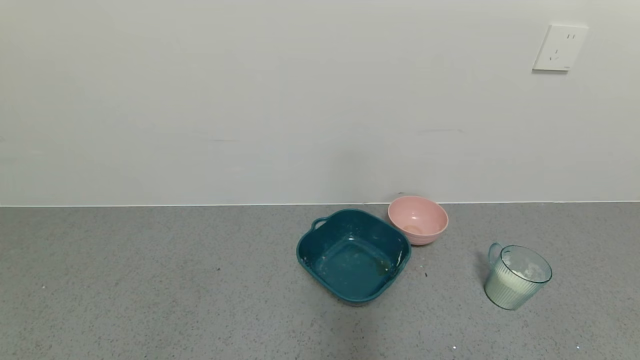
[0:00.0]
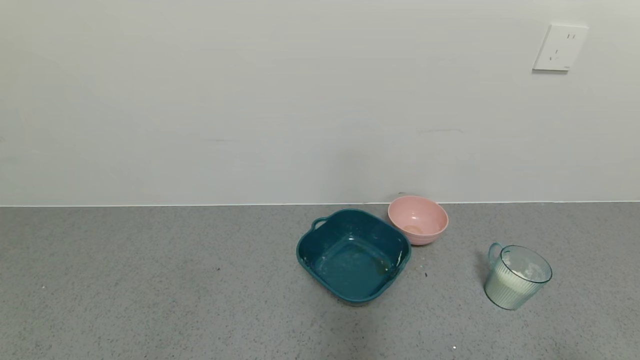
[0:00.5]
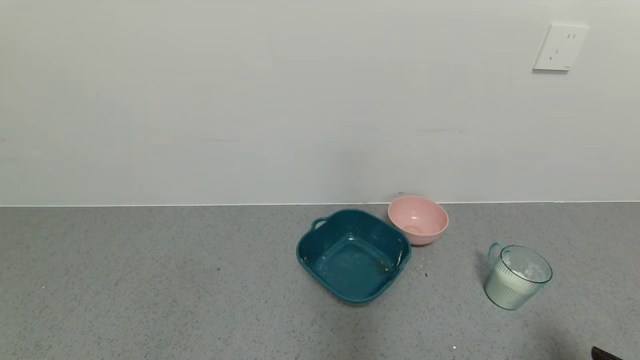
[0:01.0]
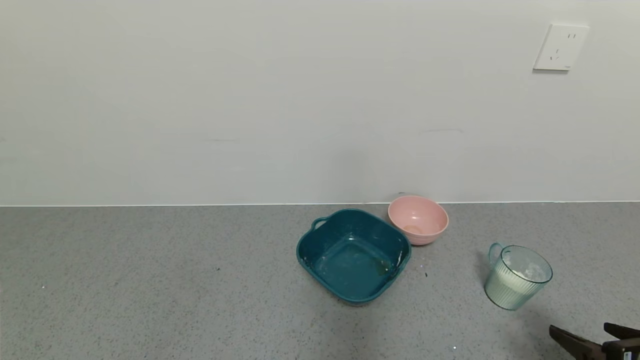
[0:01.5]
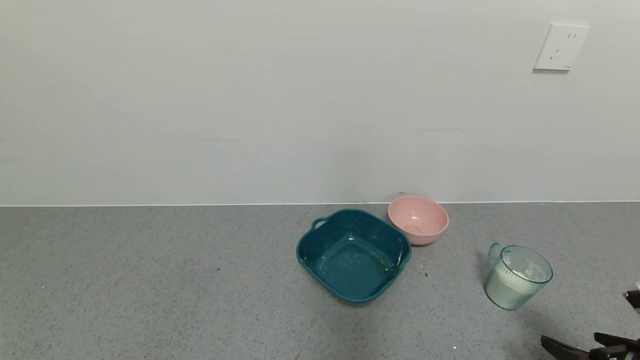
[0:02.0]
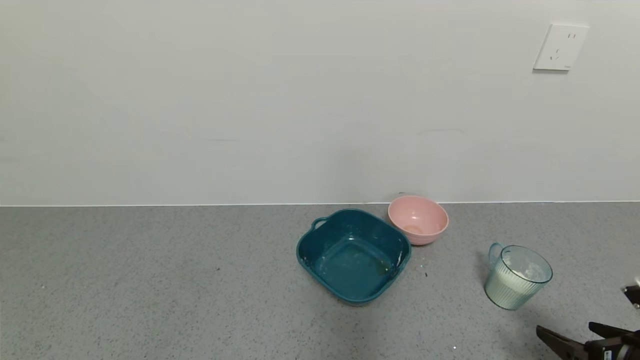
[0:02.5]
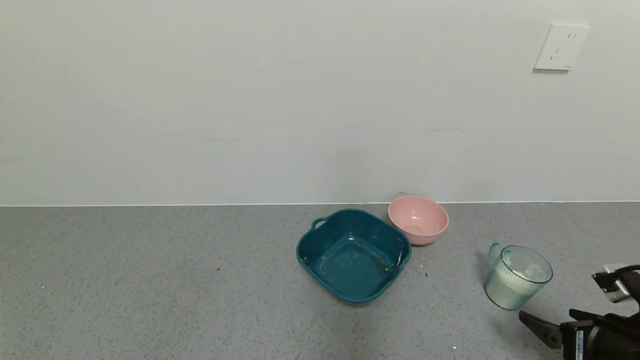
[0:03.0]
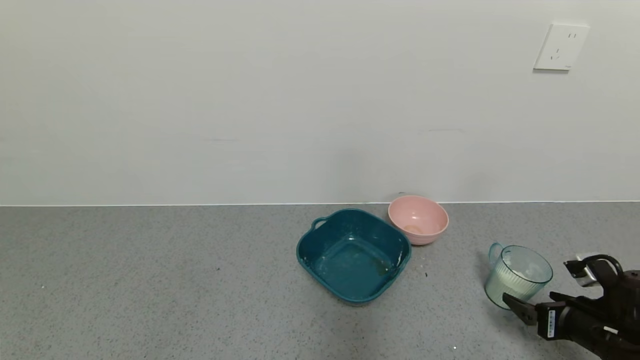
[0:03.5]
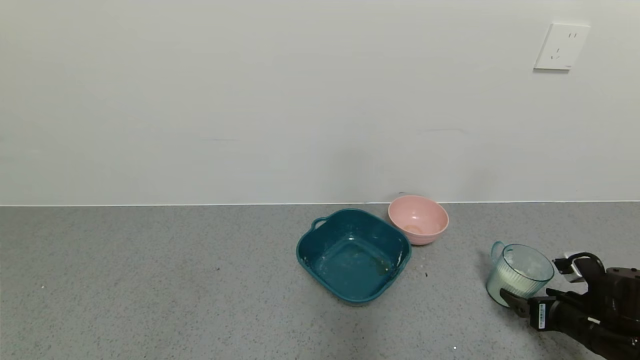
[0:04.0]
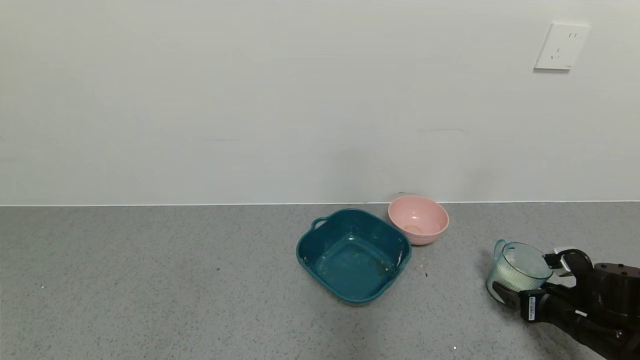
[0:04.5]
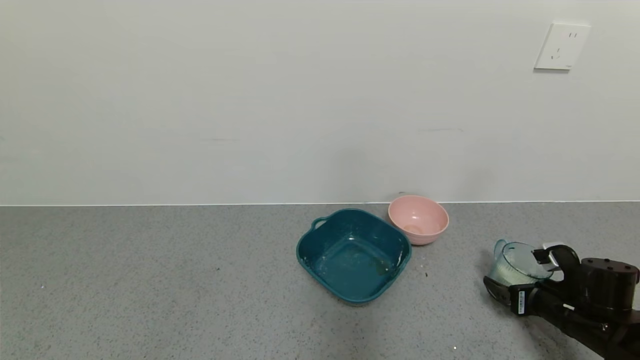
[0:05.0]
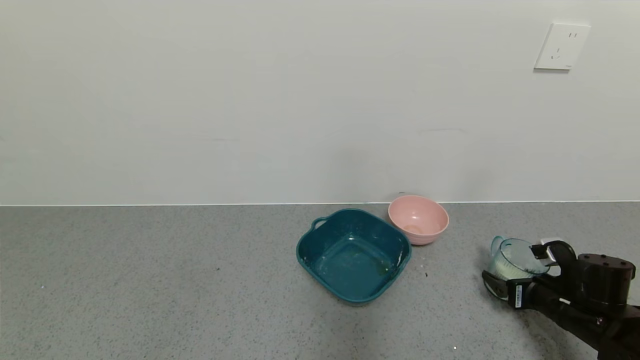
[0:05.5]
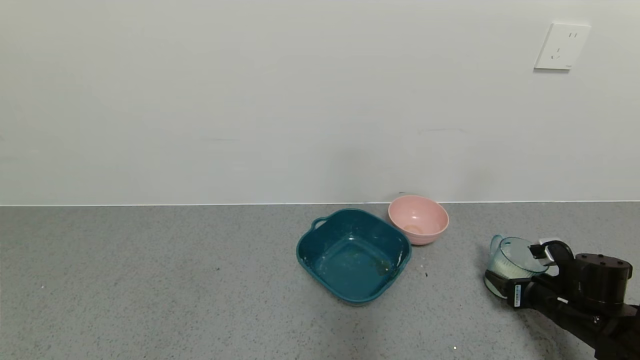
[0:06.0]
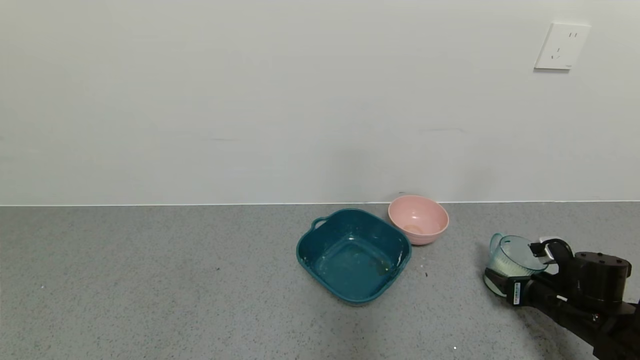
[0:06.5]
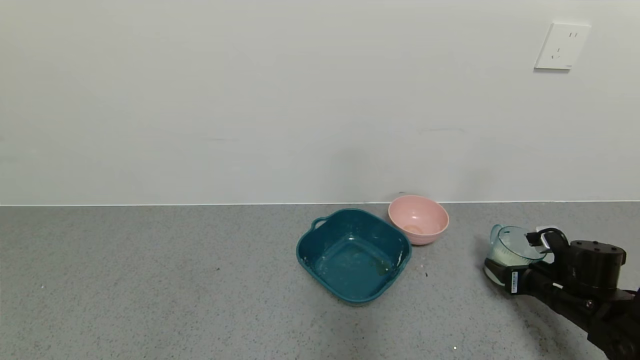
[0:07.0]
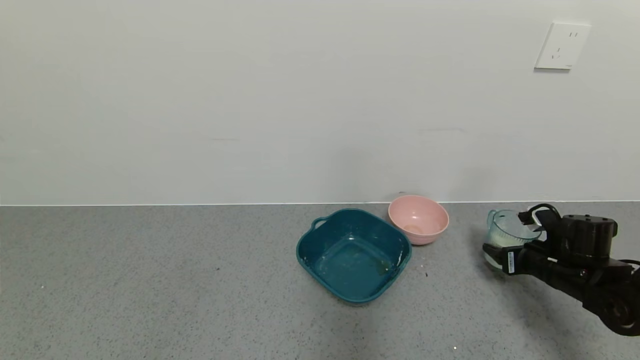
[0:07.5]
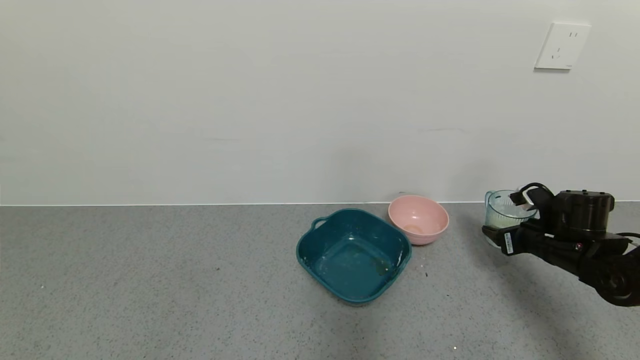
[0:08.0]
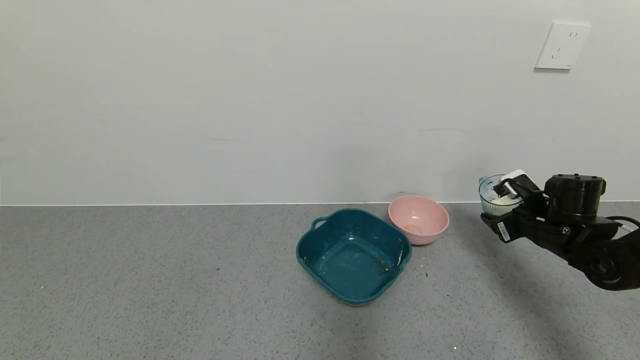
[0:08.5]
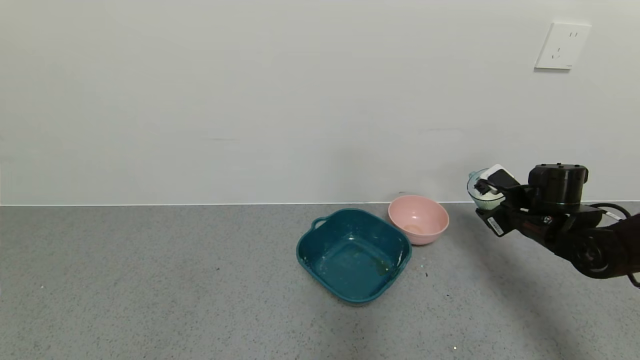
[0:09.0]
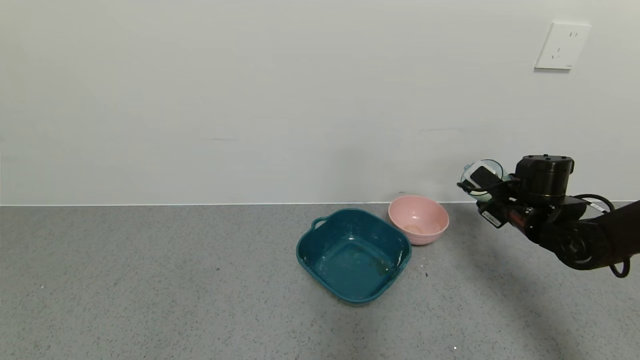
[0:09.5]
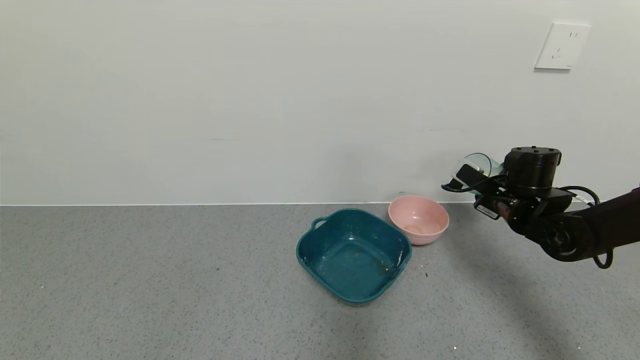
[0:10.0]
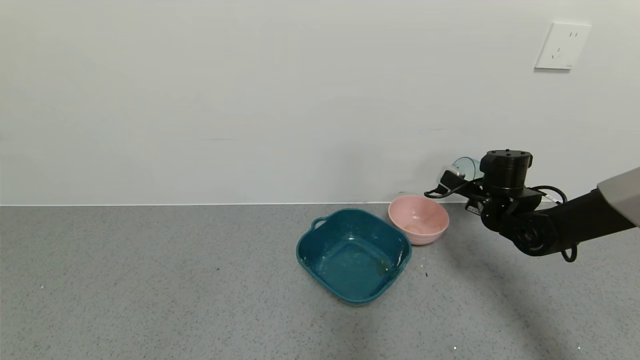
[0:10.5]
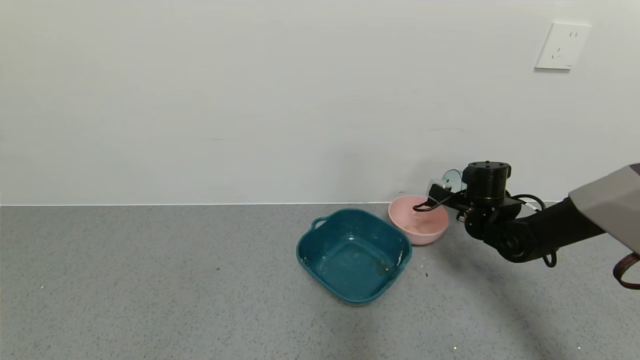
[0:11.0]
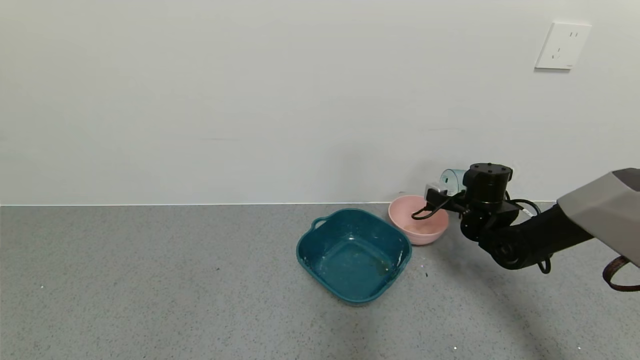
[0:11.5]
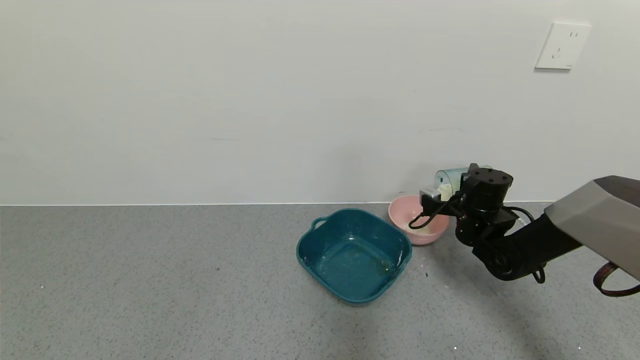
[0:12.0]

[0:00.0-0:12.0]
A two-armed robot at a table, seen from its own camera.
Task of the whole recording: use a gripper to pick up the cup and pour the powder into a bowl or tray.
Step, 0:00.0 to 0:08.0: Pick up blue cup filled with milk powder with right gripper.
0:00.0 to 0:02.0: The right gripper goes roughly 15 cm forward.
0:02.0 to 0:04.0: The right gripper heads forward and downward, covering about 10 cm.
0:04.0 to 0:06.0: The right gripper closes.
0:06.0 to 0:08.0: The right gripper travels upward and forward by about 10 cm.
0:08.0 to 0:10.0: The right gripper is displaced to the left, upward and forward by some 10 cm.
0:10.0 to 0:12.0: The right gripper shifts by some 5 cm.

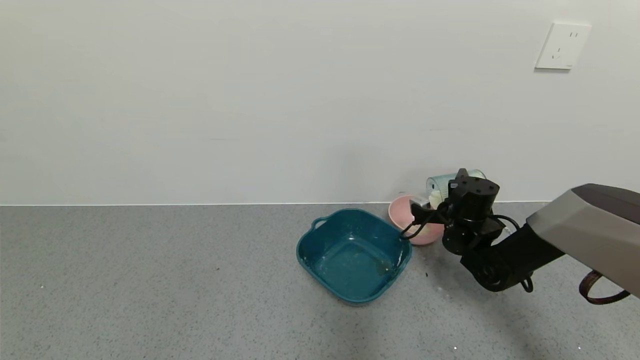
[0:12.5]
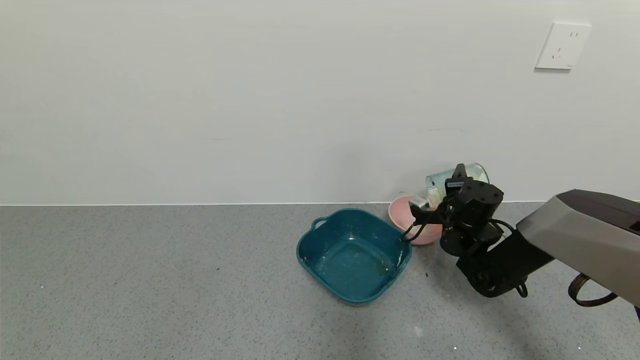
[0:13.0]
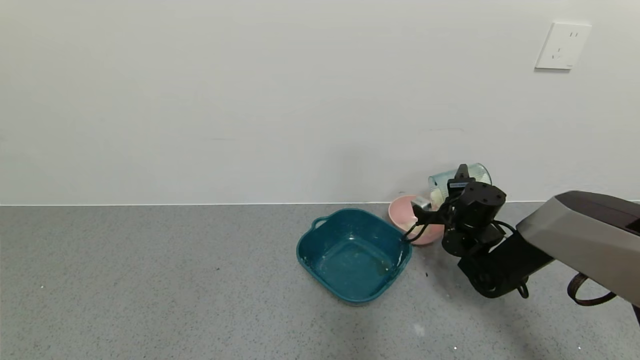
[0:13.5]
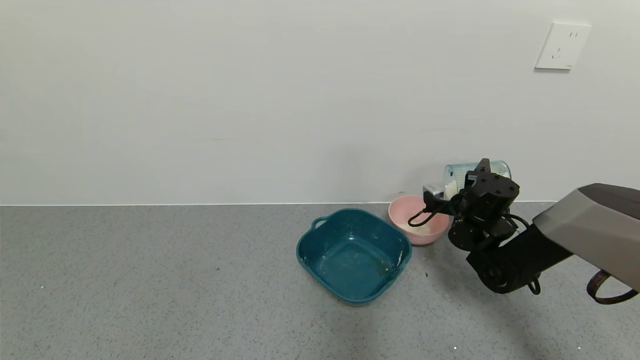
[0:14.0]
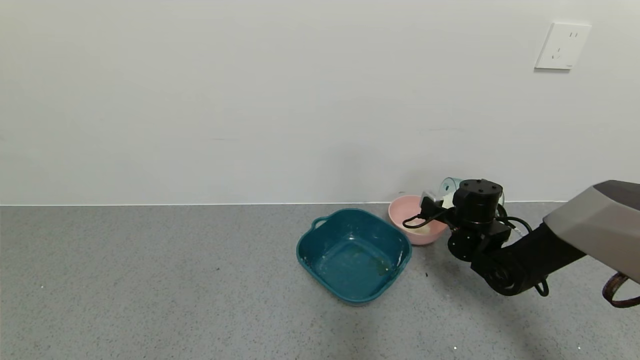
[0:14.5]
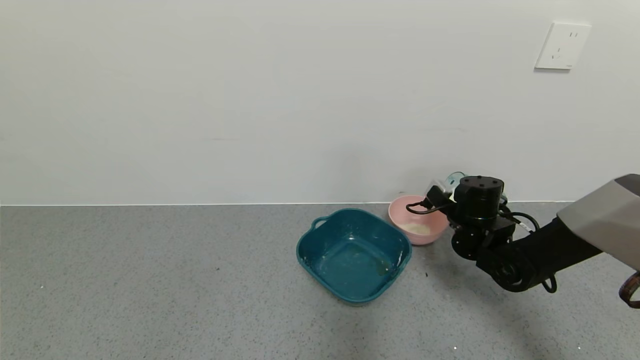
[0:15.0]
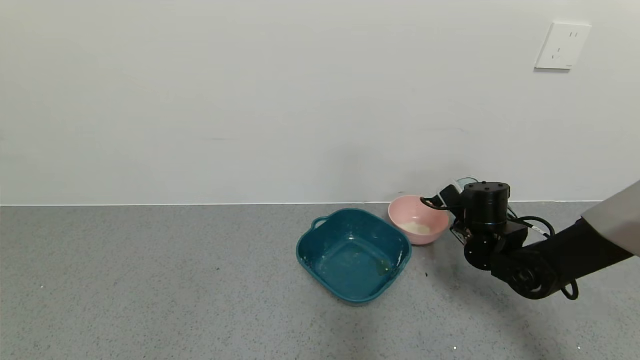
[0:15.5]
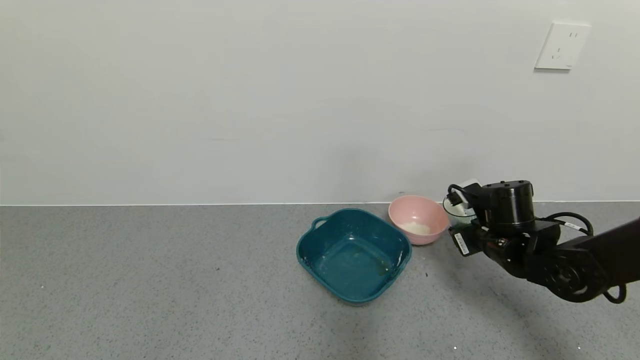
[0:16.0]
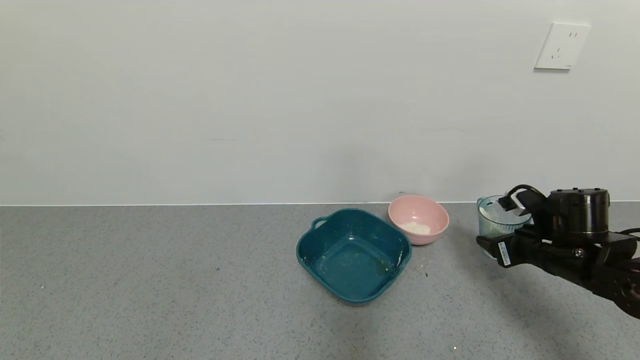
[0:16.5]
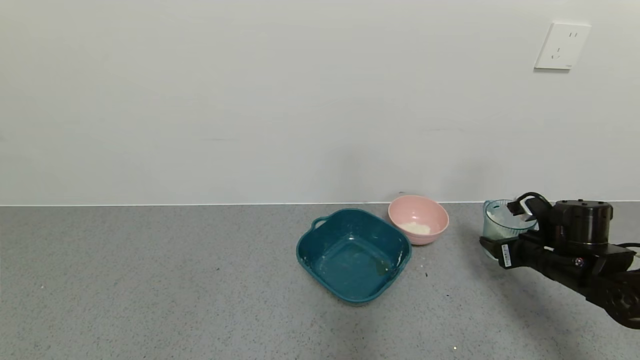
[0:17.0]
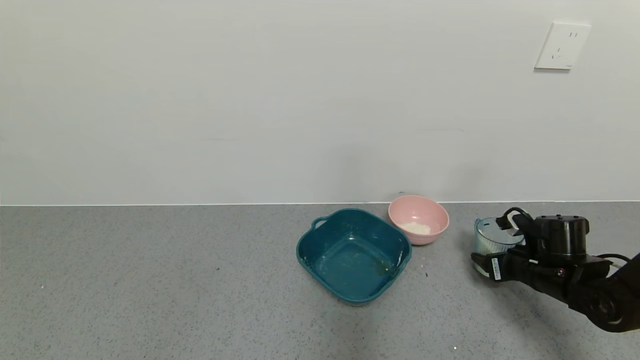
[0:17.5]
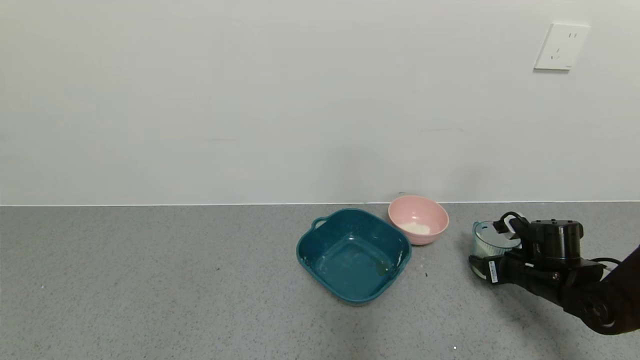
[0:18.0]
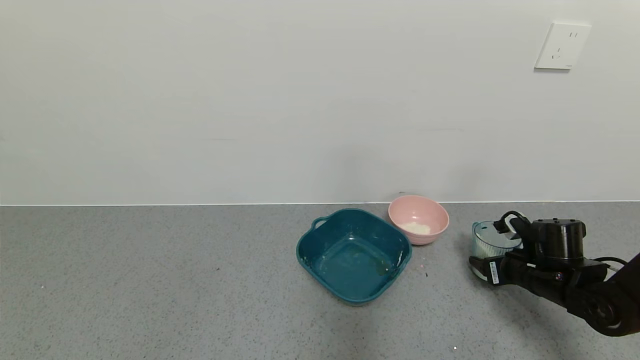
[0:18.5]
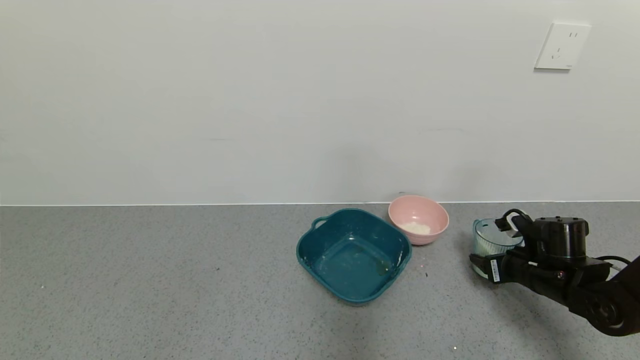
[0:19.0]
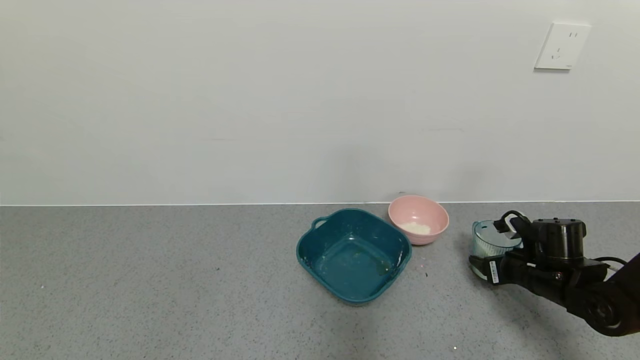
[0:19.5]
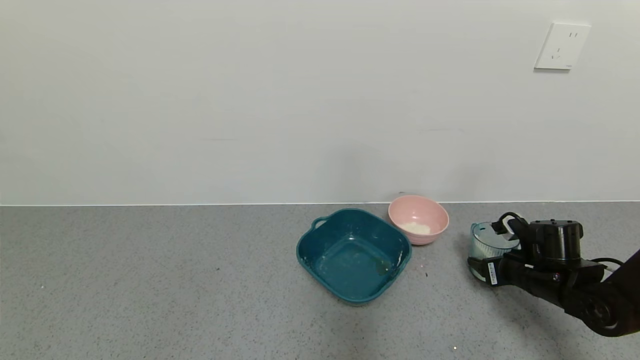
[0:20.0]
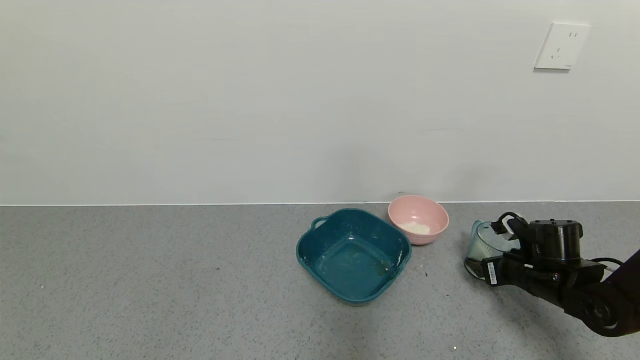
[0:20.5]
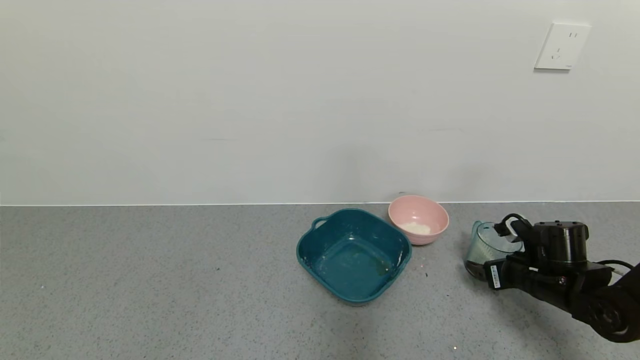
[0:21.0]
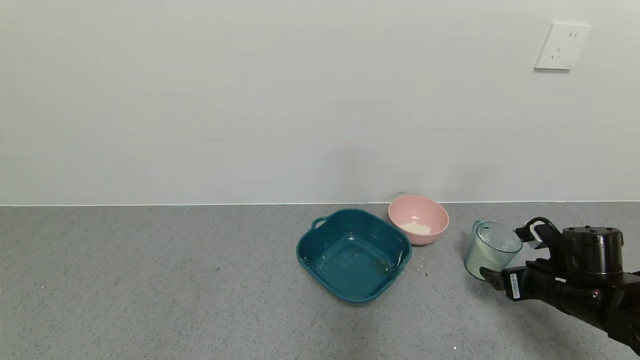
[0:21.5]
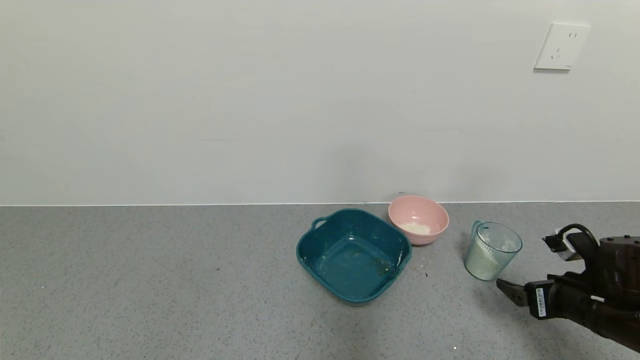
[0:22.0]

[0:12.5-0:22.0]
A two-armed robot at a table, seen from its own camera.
Task of the whole recording: use a gripper to pick up the cup and pour the powder into a bowl or tray.
Step, 0:14.5 to 0:21.5: Place blue cup with milk powder on the table with right gripper.
0:12.5 to 0:14.5: The grippers stay close to where they were, moving slightly.
0:14.5 to 0:16.5: The right gripper is displaced backward and to the right by some 15 cm.
0:16.5 to 0:18.0: The right gripper goes some 5 cm downward.
0:18.0 to 0:20.0: Both grippers stay put.
0:20.0 to 0:22.0: The right gripper moves backward, approximately 10 cm, and opens its fingers.
